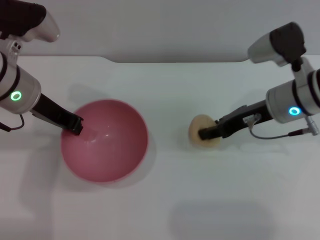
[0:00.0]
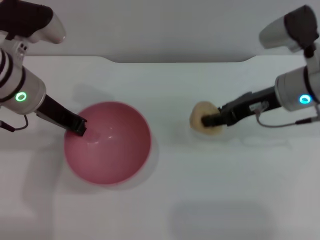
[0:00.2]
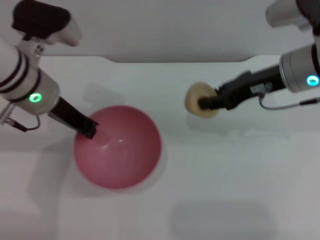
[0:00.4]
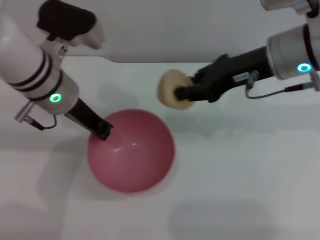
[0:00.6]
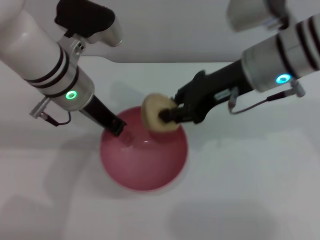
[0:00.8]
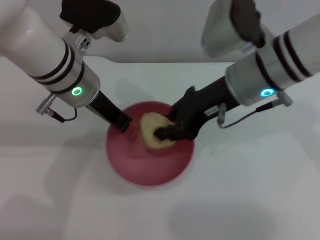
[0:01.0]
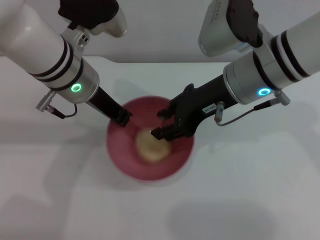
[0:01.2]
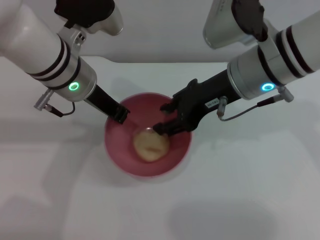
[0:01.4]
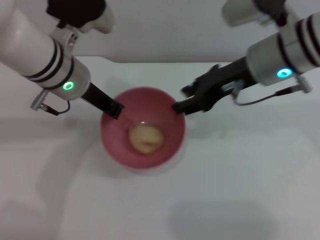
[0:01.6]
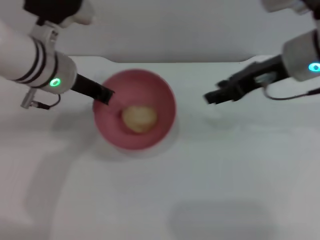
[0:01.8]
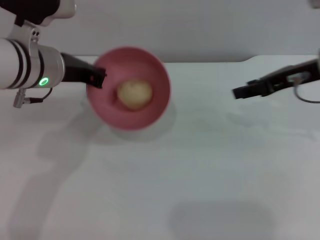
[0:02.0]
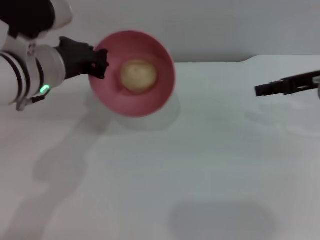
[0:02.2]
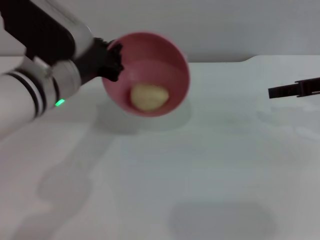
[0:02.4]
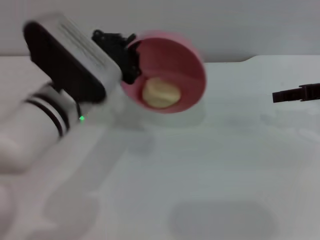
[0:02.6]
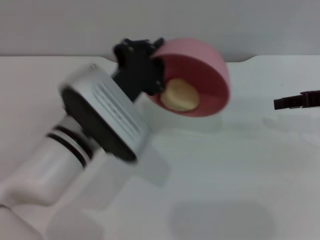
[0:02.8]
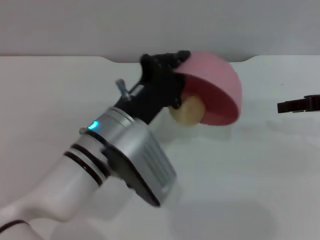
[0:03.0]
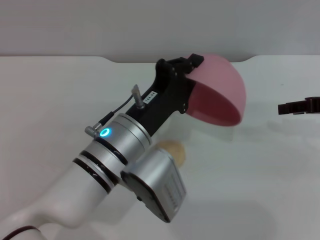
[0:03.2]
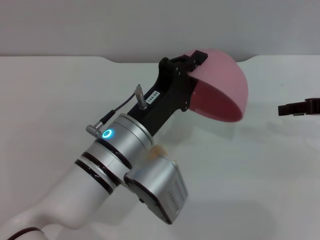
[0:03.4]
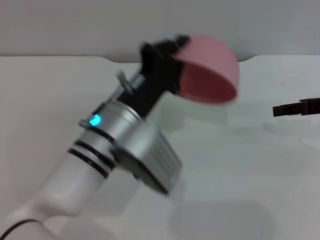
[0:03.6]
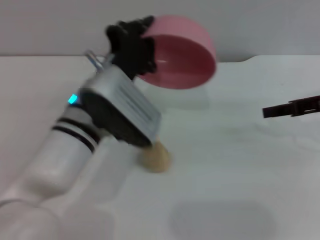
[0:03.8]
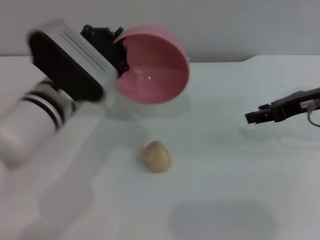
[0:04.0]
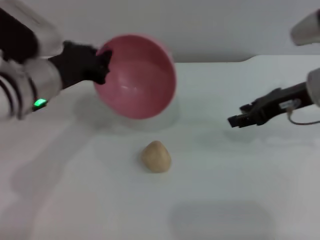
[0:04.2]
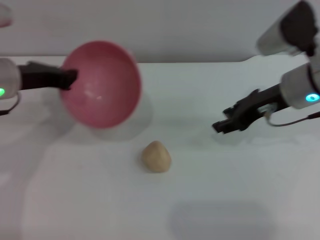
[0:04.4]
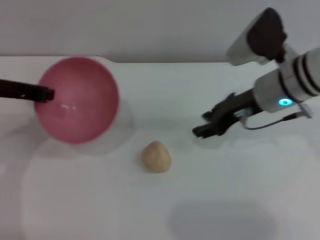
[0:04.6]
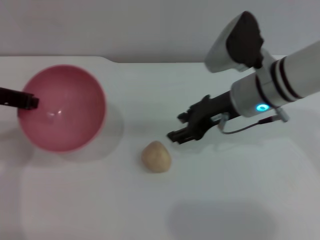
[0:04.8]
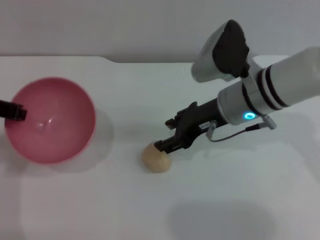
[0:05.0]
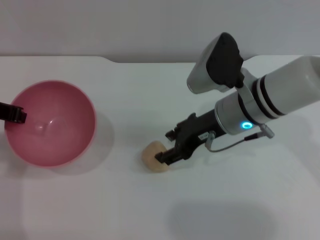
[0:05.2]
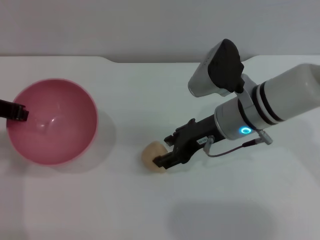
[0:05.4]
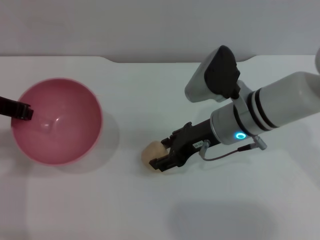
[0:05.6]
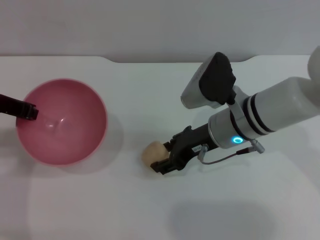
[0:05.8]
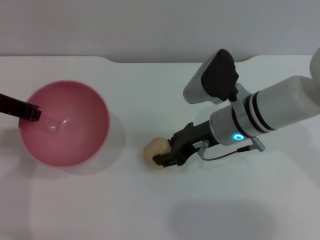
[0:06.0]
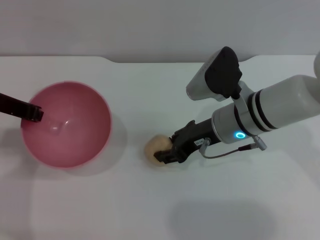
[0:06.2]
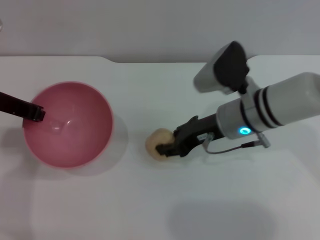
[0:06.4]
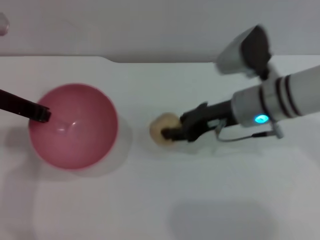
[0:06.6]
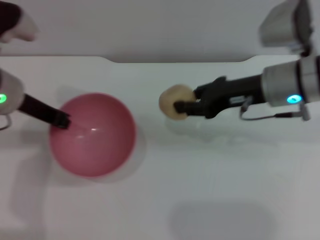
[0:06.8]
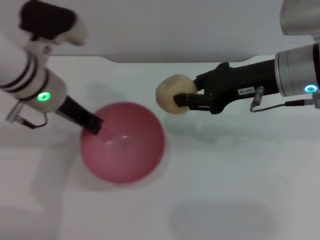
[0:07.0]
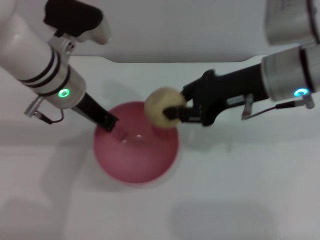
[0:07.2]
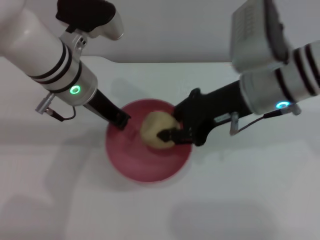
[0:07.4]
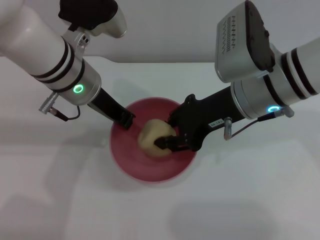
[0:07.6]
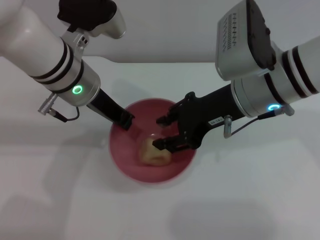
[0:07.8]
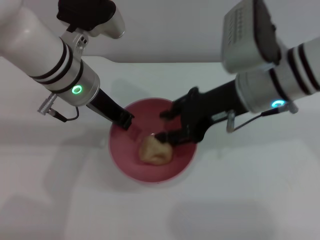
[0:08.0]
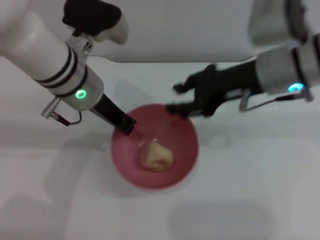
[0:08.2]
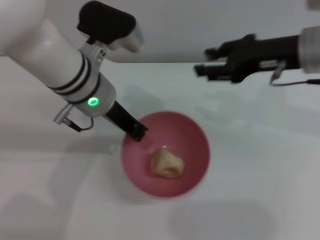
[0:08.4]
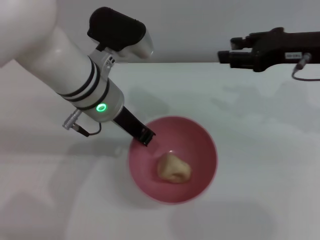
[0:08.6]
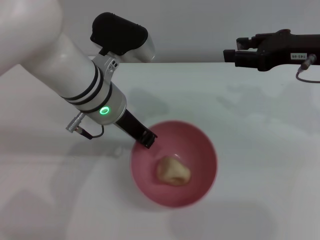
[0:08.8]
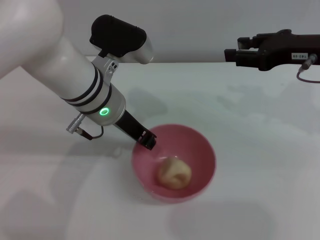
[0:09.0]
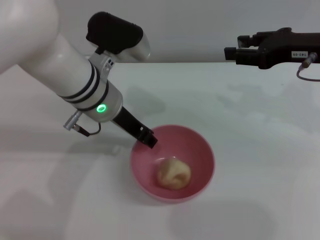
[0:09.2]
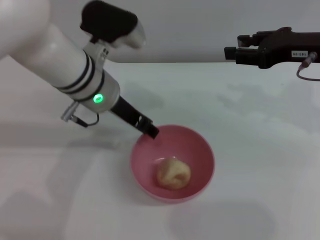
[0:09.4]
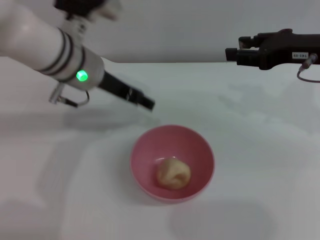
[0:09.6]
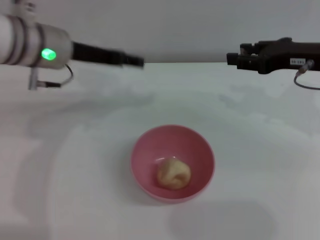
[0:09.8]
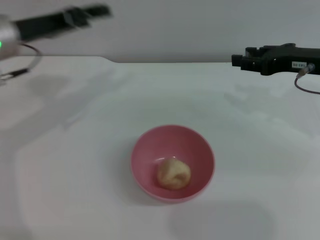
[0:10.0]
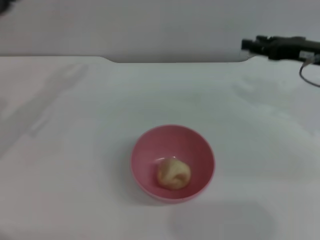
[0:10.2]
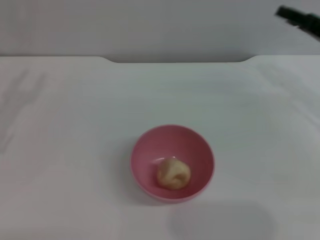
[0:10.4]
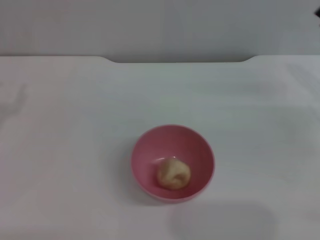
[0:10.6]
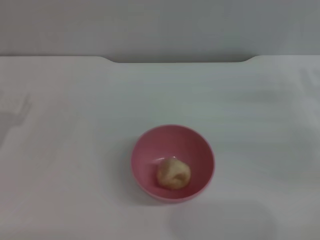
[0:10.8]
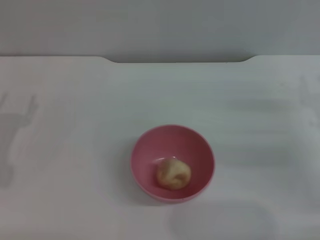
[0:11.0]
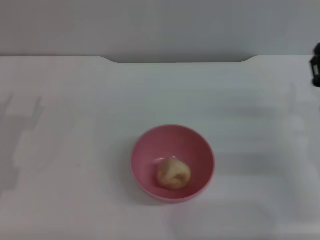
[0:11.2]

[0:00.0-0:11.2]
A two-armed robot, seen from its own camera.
Task of the whole recording: put the egg yolk pastry into the pink bowl and pour it out repeatedly.
Step, 0:00.4 to 0:01.4: Place the egg yolk pastry into the bowl.
Step, 0:01.8 to 0:03.4: Pour the egg yolk pastry out of bowl.
Step, 0:03.6 to 0:06.6: Pick up the egg yolk pastry with the right gripper.
Step, 0:06.8 to 0:08.0: Place the egg yolk pastry into the bowl.
Step, 0:08.2 to 0:09.4: Place the bowl on the table.
0:00.0 to 0:01.6: The left gripper shifts approximately 5 cm to the right. Meanwhile the right gripper is displaced upward by roughly 10 cm, and closes, then reopens.
0:01.6 to 0:03.2: The right gripper heads to the right, covering about 20 cm. The left gripper moves backward, downward and to the right, approximately 15 cm.
0:03.2 to 0:04.8: The left gripper is displaced to the left and upward by some 20 cm. Meanwhile the right gripper moves to the left, about 20 cm.
0:04.8 to 0:06.4: The grippers stay close to where they were, moving slightly.
0:06.4 to 0:08.0: The left gripper moves to the right, some 15 cm; the right gripper shifts some 10 cm upward, and closes, then reopens.
0:08.0 to 0:09.6: The left gripper opens, while the right gripper is displaced to the right by roughly 10 cm.
0:09.6 to 0:11.2: The right gripper moves downward and backward, roughly 15 cm. Meanwhile the left gripper travels to the left, downward and backward by roughly 25 cm.
